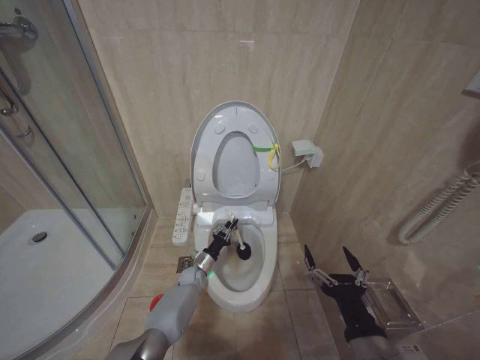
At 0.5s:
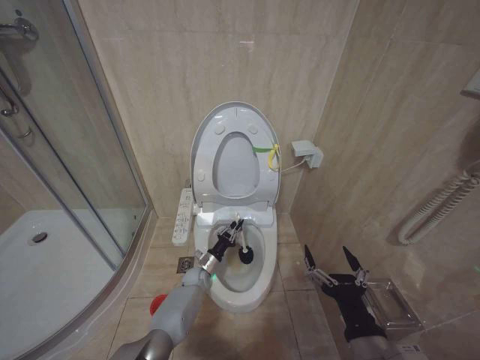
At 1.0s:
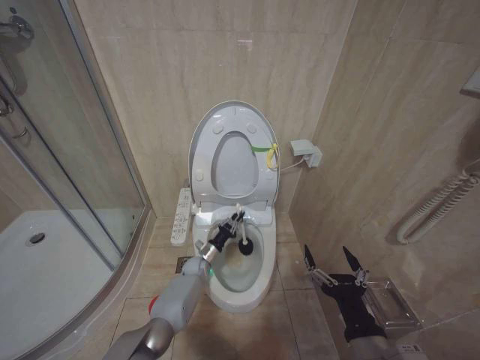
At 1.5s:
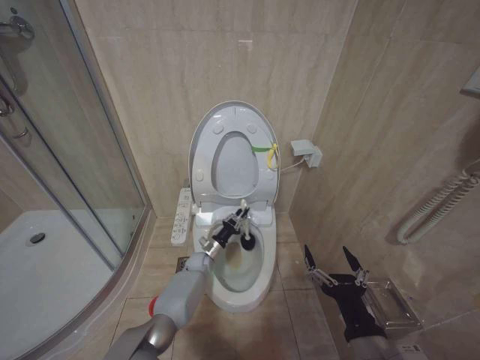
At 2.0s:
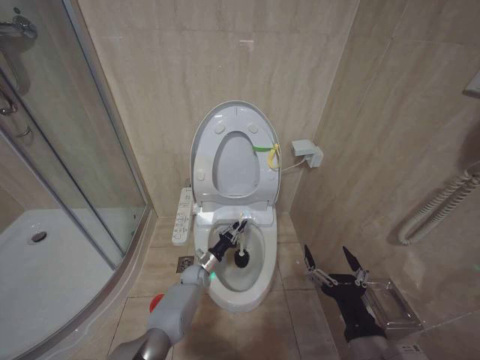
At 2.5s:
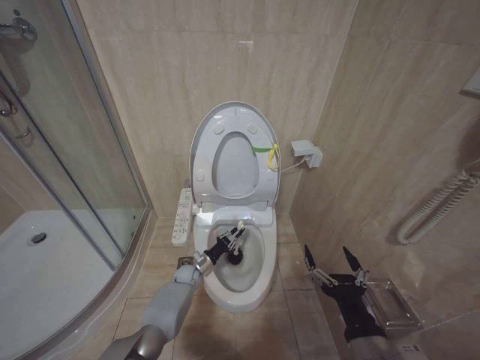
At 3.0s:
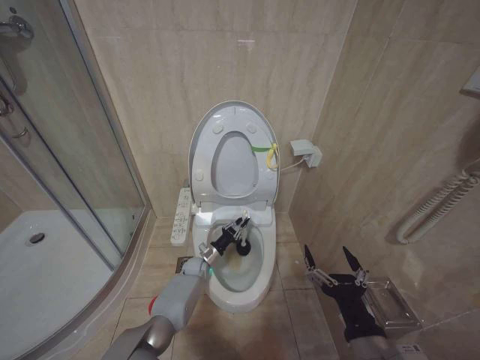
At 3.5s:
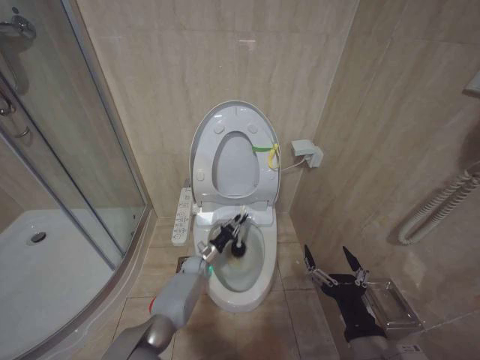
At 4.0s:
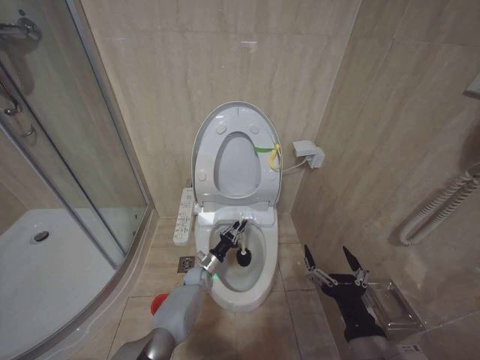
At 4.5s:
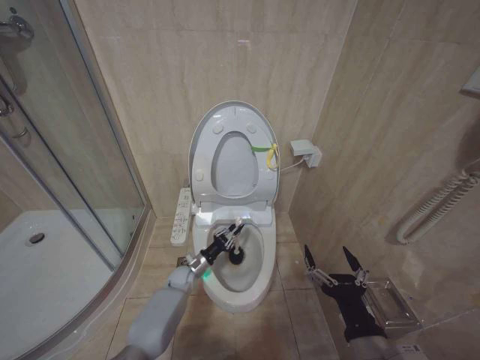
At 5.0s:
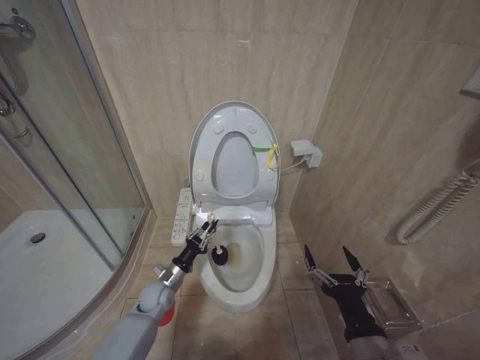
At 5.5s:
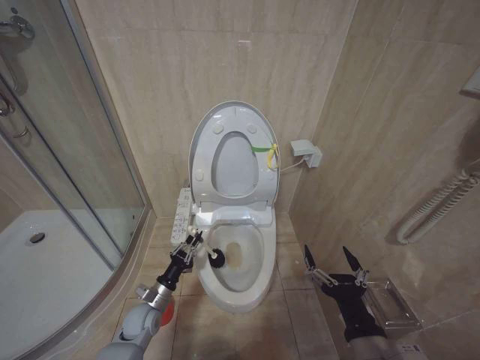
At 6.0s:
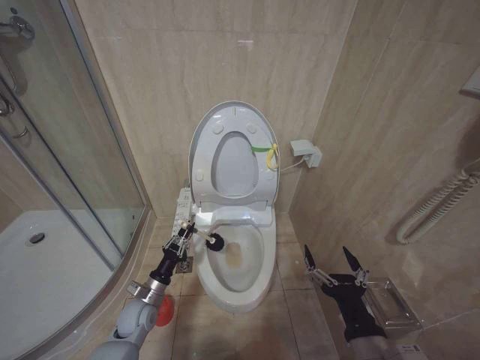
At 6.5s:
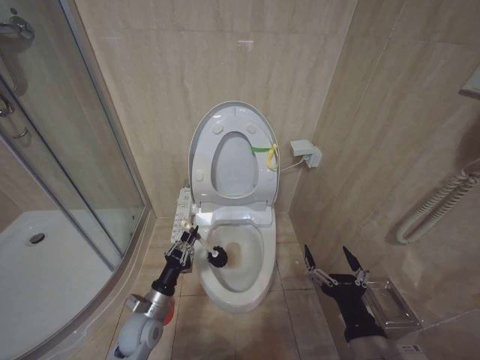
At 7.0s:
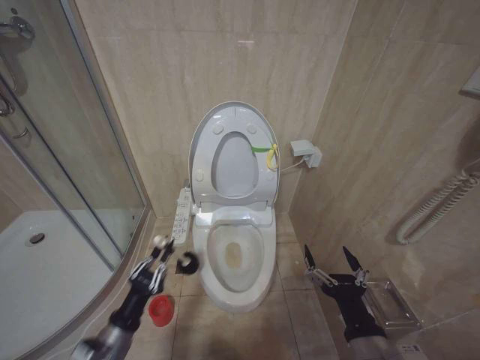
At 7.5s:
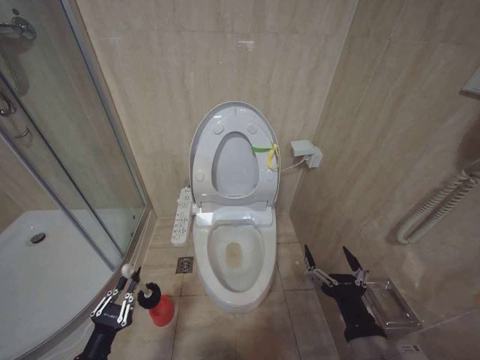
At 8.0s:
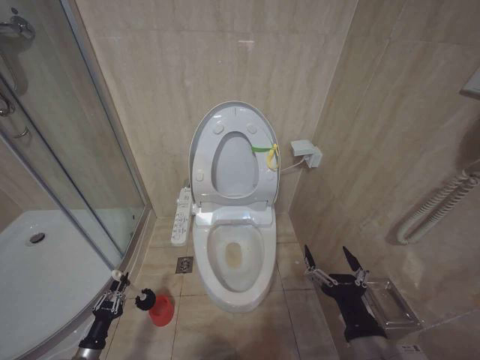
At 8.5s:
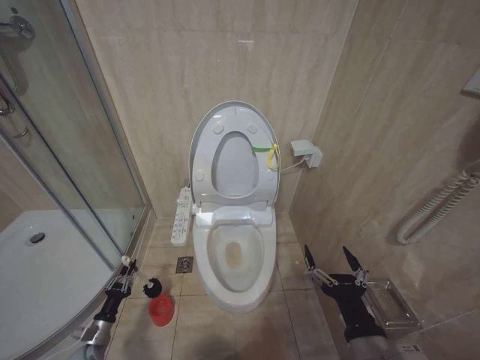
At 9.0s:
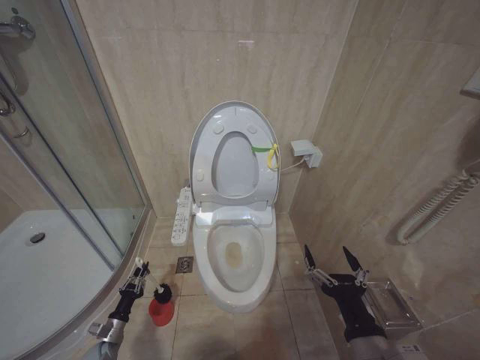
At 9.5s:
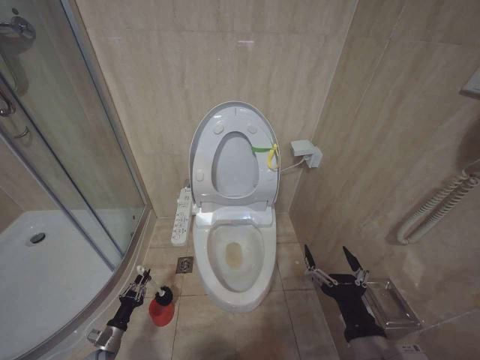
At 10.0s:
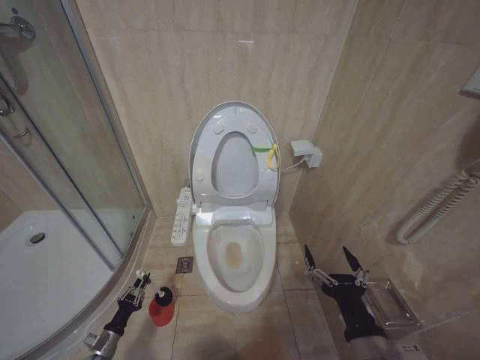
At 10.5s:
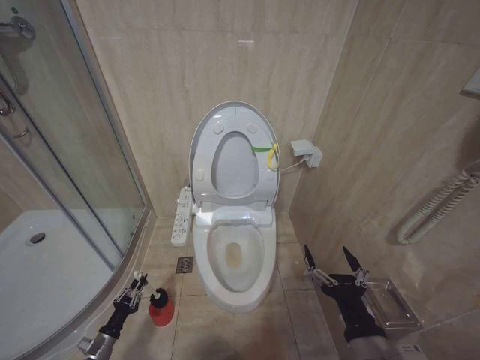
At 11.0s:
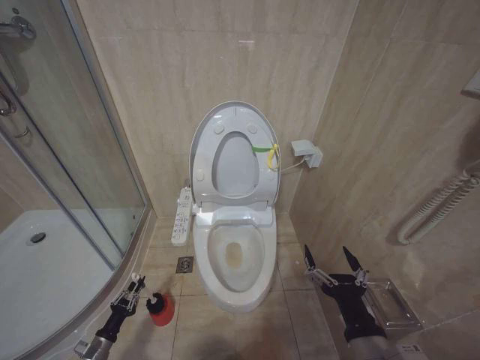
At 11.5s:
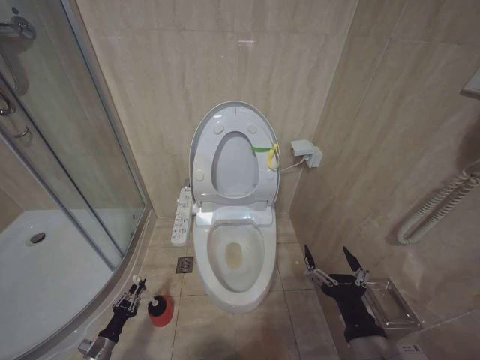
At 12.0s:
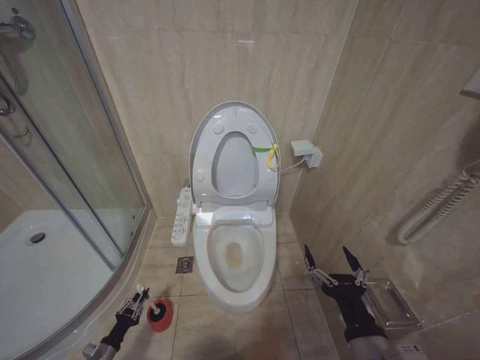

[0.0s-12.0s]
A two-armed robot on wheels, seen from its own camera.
Task of the whole recording: Open the toilet lid, clean the toilet bowl with a toilet brush, close the toilet lid, and flush.
2.0s to 4.0s: There are only small adjustments of the grippers.
4.0s to 6.0s: The left gripper goes some 25 cm to the left, backward and upward.
6.0s to 8.0s: The left gripper heads to the left, backward and downward, covering some 25 cm.
8.0s to 10.0s: The left gripper goes some 10 cm downward and forward.
10.0s to 12.0s: The grippers stay close to where they were, moving slightly.

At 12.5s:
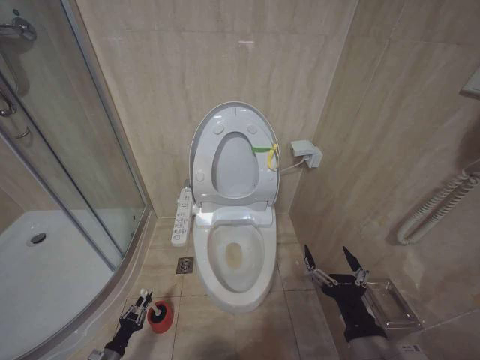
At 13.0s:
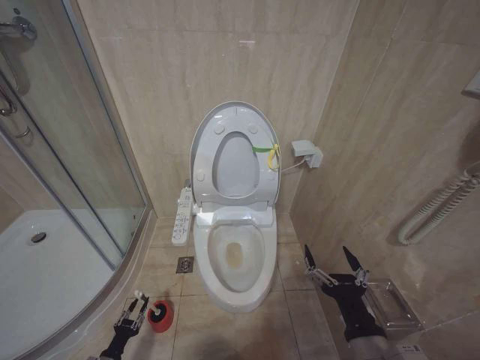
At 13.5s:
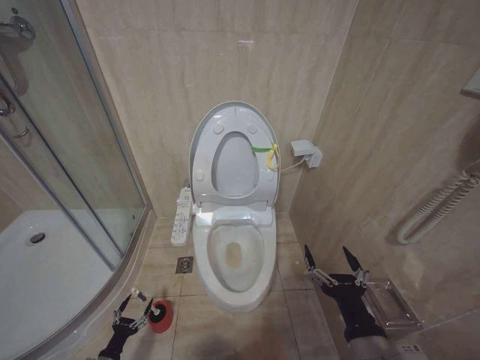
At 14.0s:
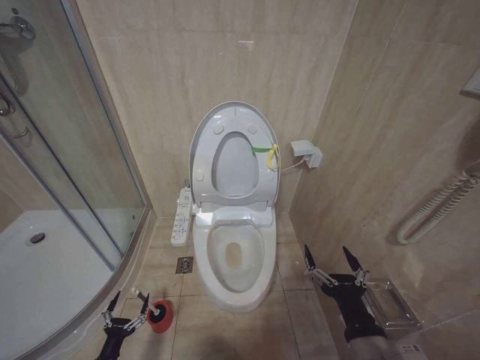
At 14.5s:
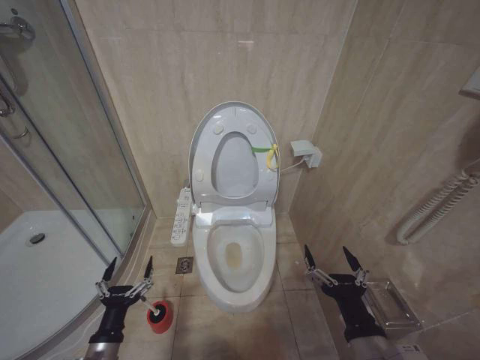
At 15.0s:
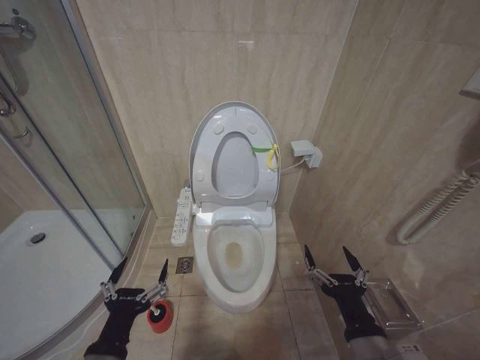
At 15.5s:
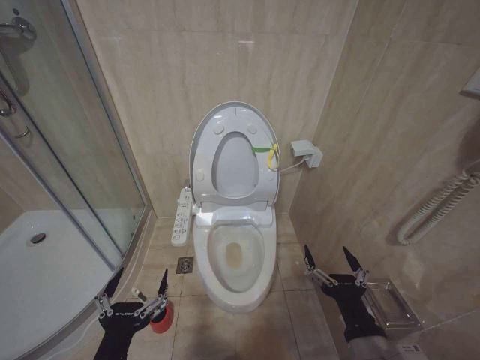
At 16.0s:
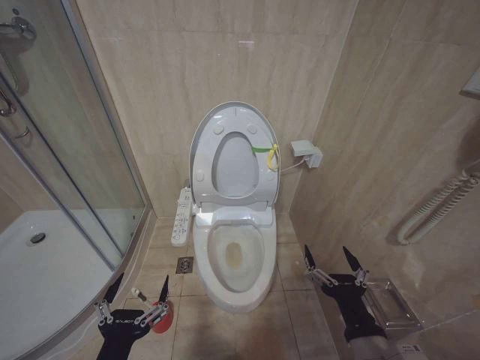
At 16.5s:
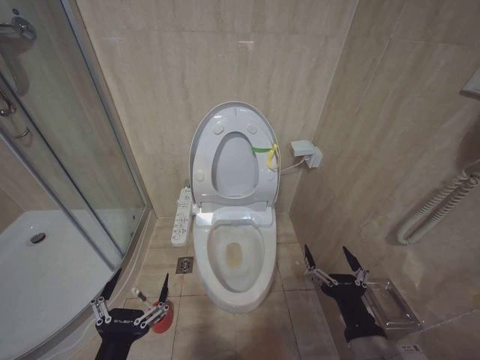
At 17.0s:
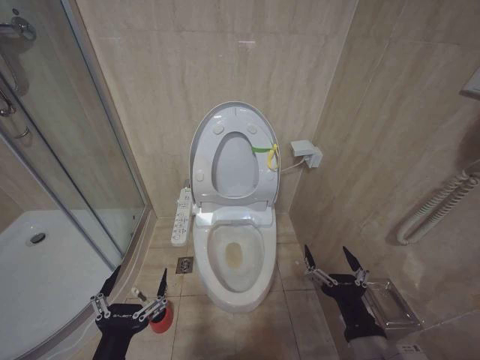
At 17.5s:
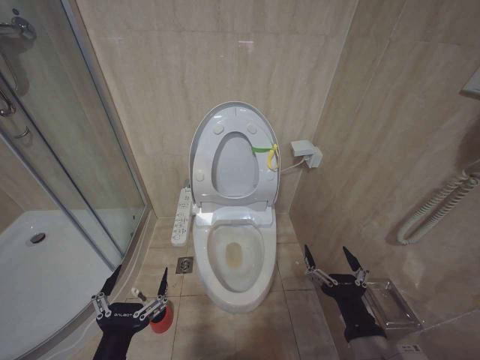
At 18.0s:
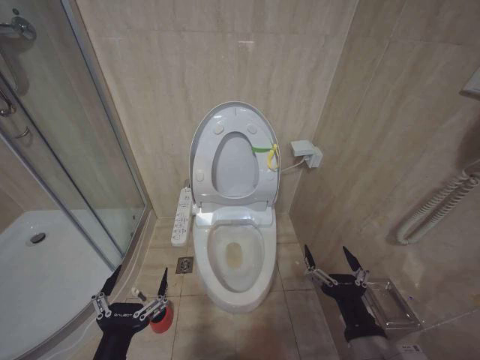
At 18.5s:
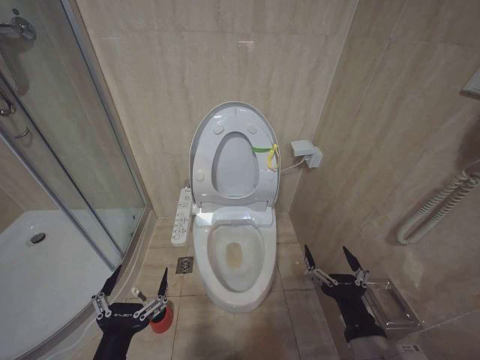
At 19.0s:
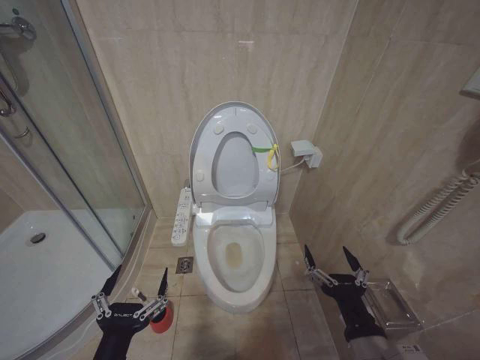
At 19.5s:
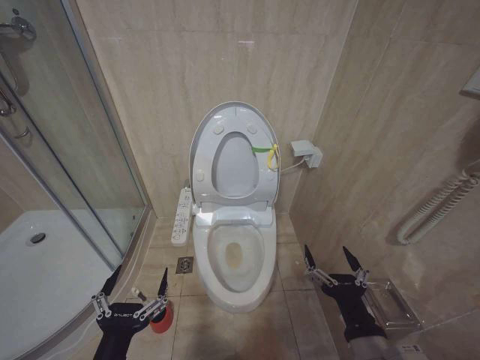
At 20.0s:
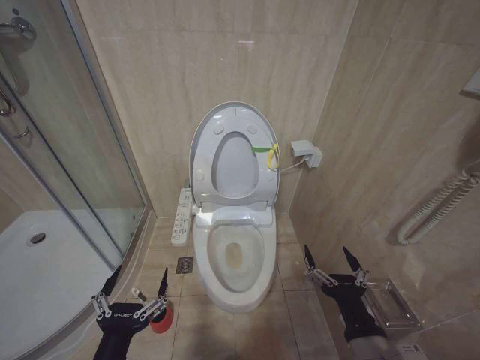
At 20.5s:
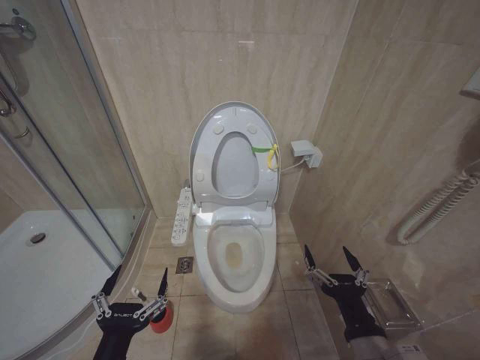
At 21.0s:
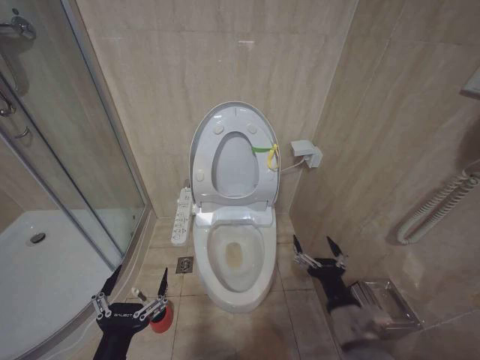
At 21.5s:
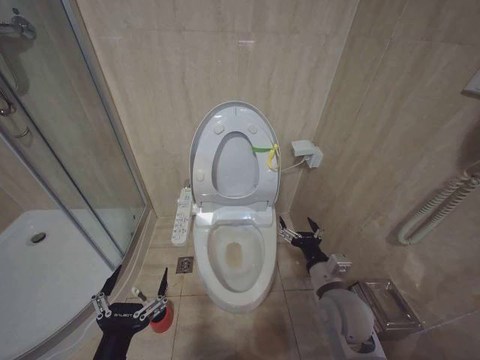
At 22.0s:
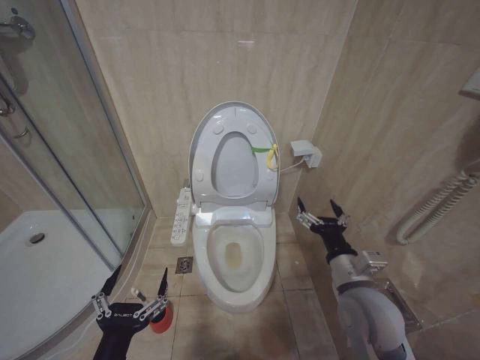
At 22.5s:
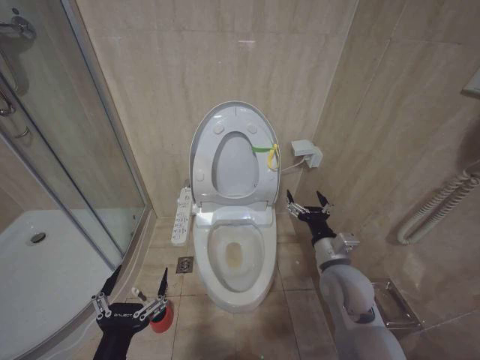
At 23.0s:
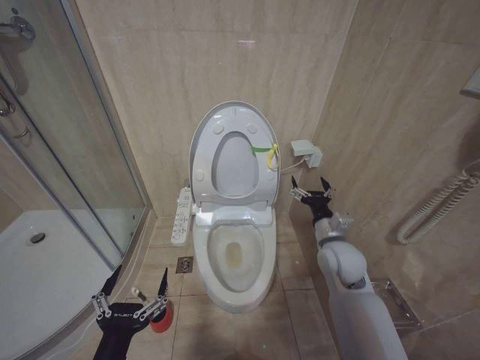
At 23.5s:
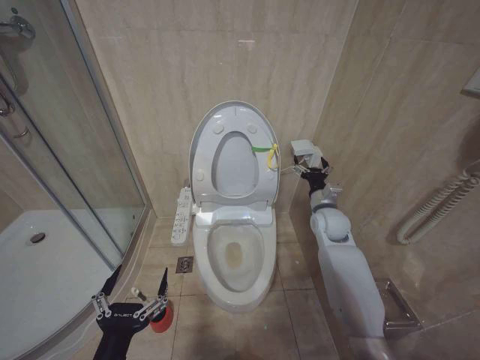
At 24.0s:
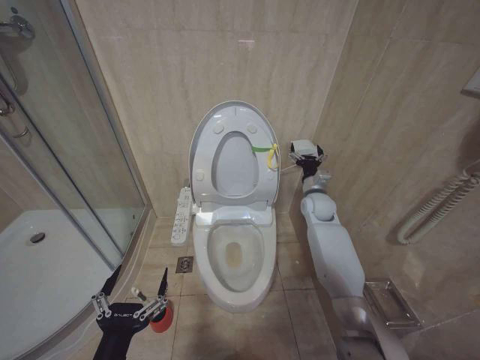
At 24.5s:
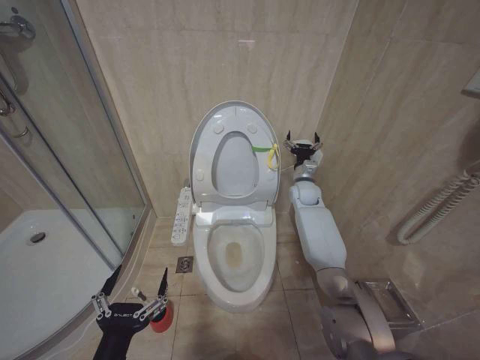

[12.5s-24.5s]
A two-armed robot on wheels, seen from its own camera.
Task of the whole recording: Open the toilet lid, clean the toilet bowl with a toilet brush, close the toilet lid, and flush.
12.5s to 14.5s: The left gripper moves upward and to the right, roughly 30 cm, and opens.
14.5s to 16.5s: The left gripper travels upward, backward and to the right by approximately 20 cm.
16.5s to 20.5s: The two grippers keep their place.
20.5s to 22.5s: The right gripper shifts some 20 cm forward.
22.5s to 24.5s: The right gripper moves forward, approximately 30 cm.

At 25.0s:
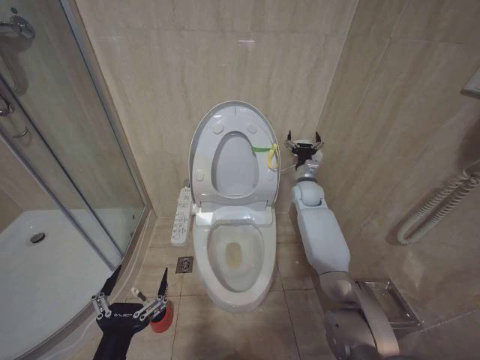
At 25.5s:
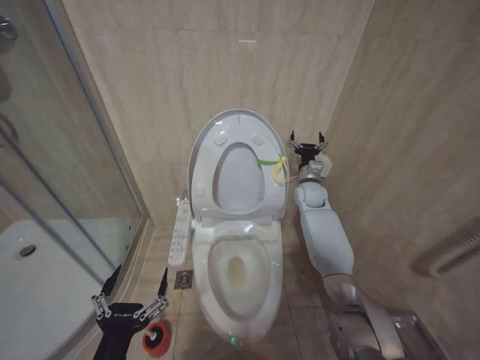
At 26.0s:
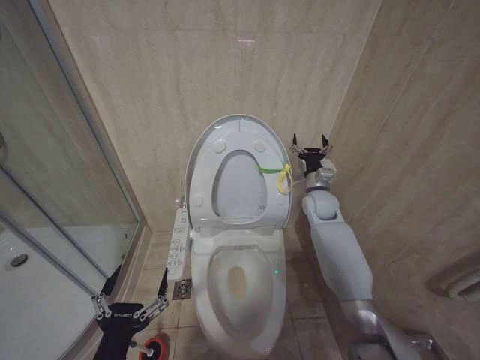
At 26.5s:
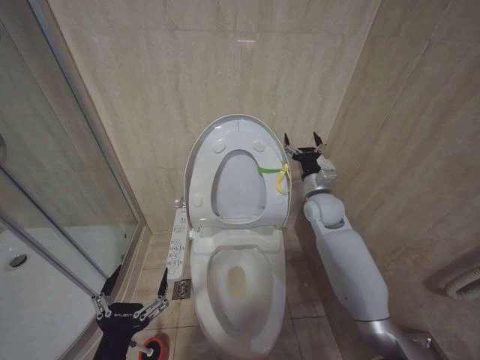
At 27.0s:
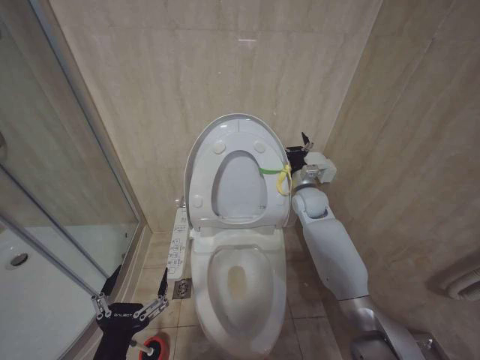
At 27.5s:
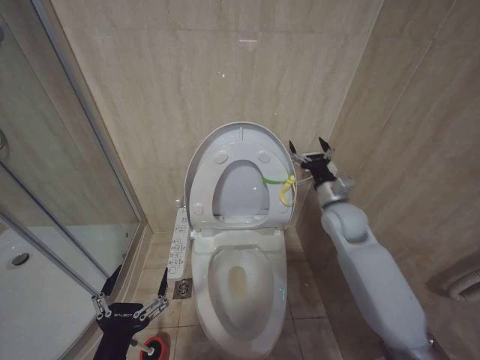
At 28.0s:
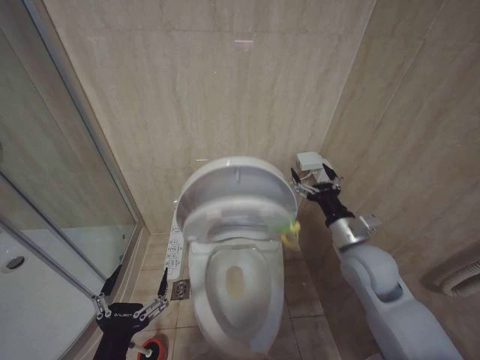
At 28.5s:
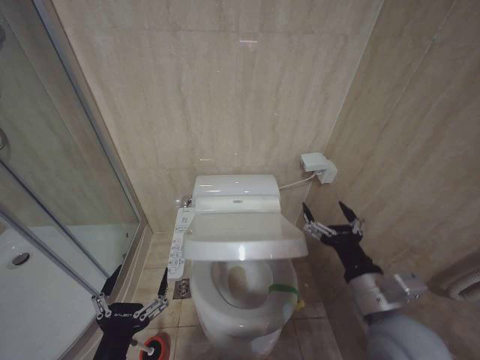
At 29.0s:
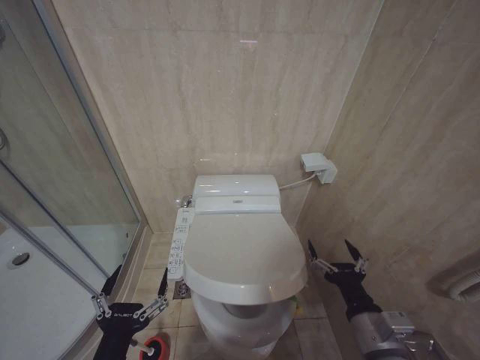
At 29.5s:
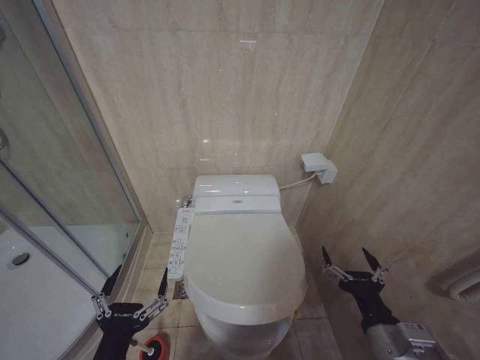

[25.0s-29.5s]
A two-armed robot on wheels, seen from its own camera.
Task of the whole recording: Open the toilet lid, clean the toilet bowl with a toilet brush, close the toilet lid, and flush.
25.0s to 27.0s: The right gripper is displaced backward by about 5 cm.
27.0s to 29.5s: The right gripper heads backward, covering approximately 40 cm.
